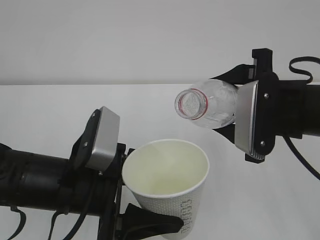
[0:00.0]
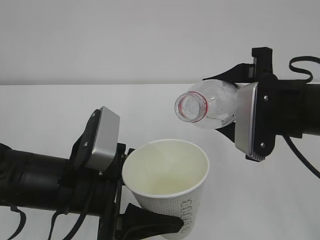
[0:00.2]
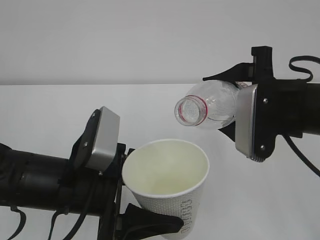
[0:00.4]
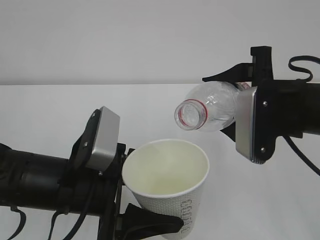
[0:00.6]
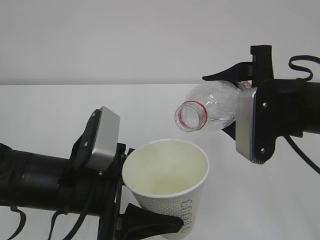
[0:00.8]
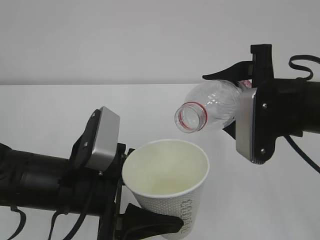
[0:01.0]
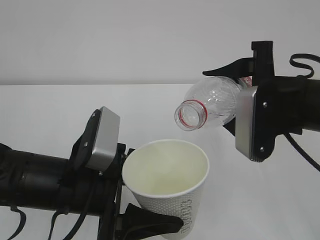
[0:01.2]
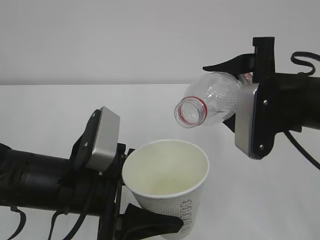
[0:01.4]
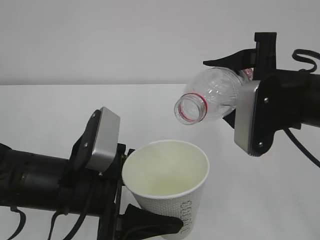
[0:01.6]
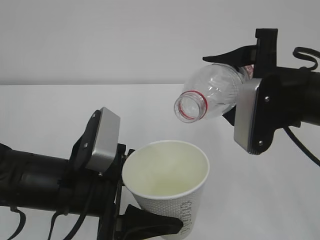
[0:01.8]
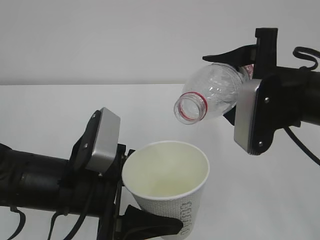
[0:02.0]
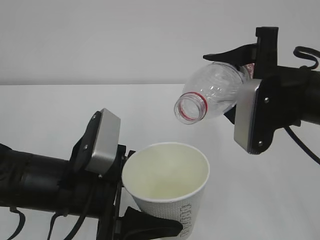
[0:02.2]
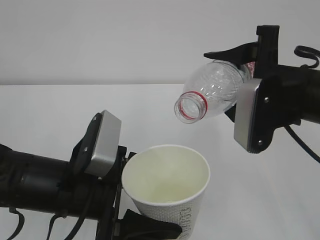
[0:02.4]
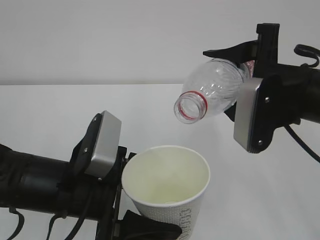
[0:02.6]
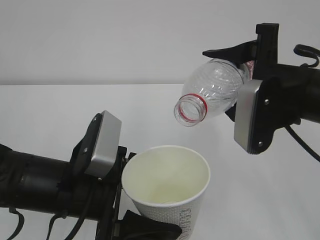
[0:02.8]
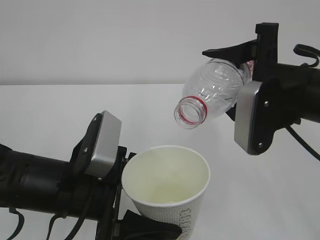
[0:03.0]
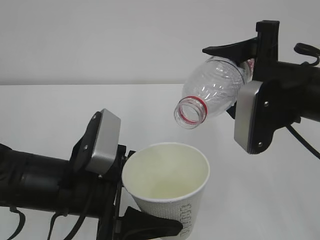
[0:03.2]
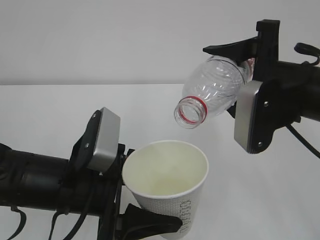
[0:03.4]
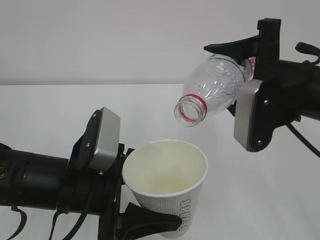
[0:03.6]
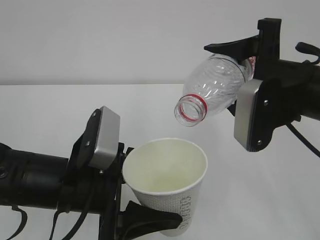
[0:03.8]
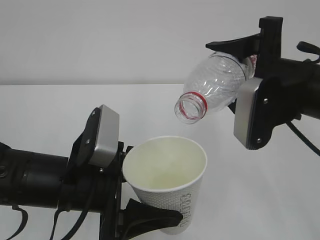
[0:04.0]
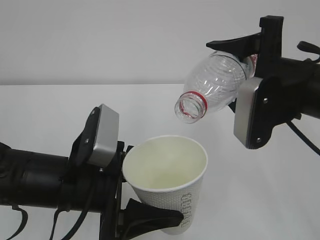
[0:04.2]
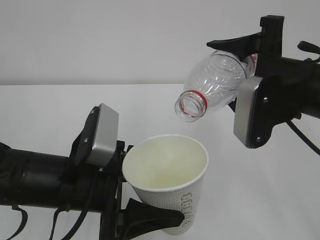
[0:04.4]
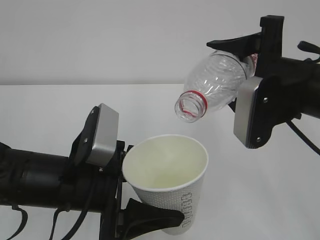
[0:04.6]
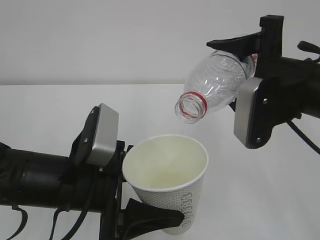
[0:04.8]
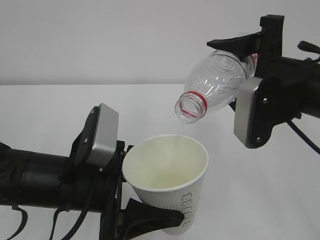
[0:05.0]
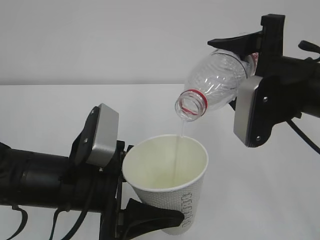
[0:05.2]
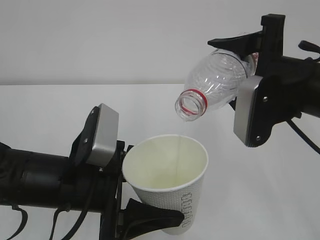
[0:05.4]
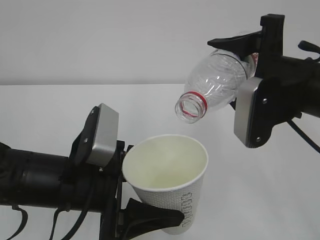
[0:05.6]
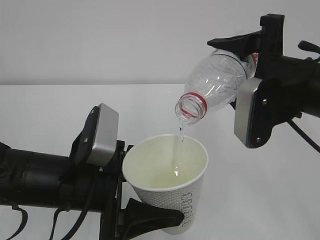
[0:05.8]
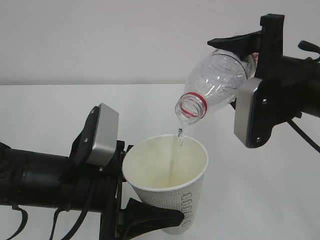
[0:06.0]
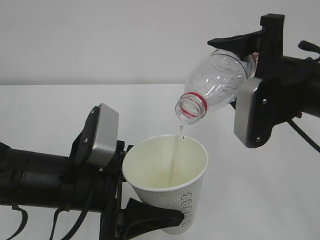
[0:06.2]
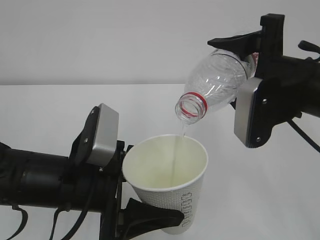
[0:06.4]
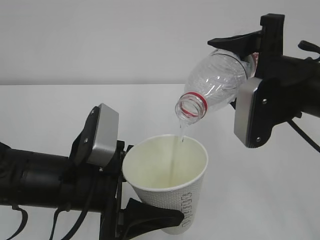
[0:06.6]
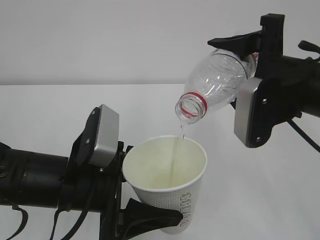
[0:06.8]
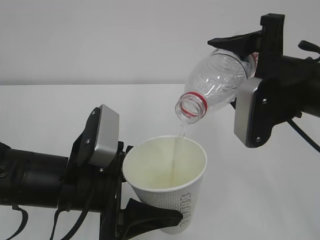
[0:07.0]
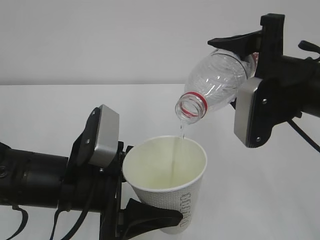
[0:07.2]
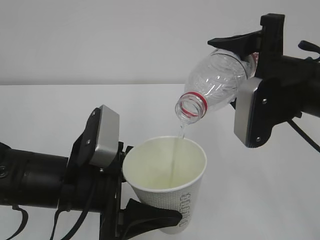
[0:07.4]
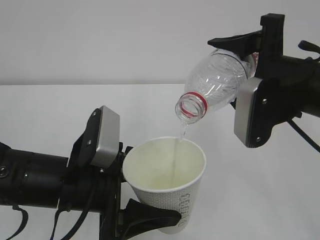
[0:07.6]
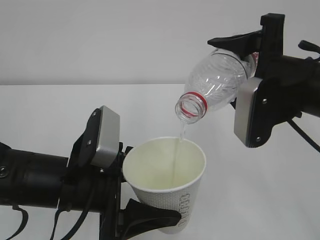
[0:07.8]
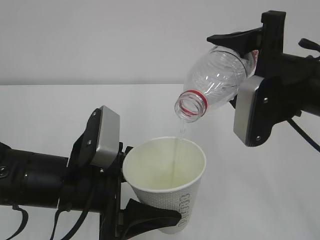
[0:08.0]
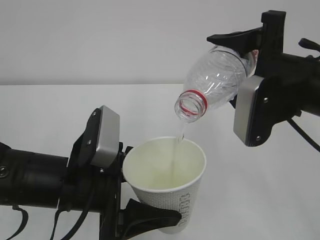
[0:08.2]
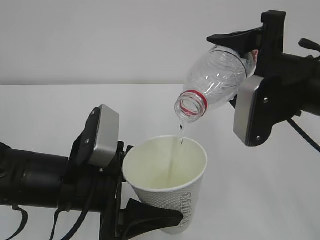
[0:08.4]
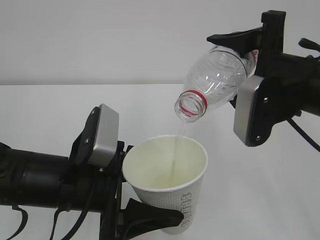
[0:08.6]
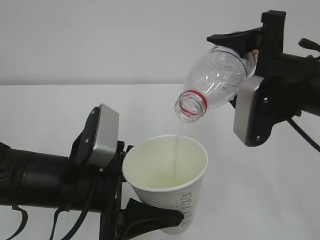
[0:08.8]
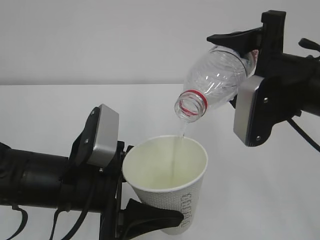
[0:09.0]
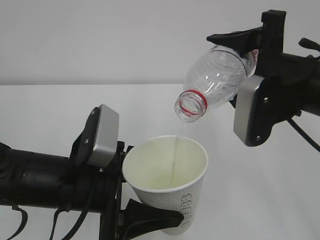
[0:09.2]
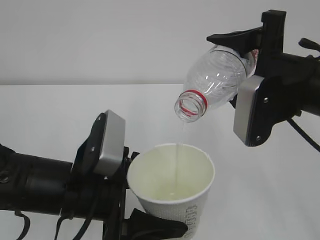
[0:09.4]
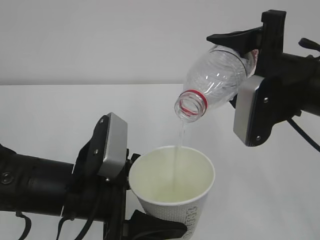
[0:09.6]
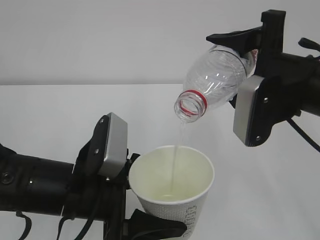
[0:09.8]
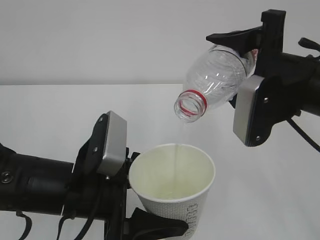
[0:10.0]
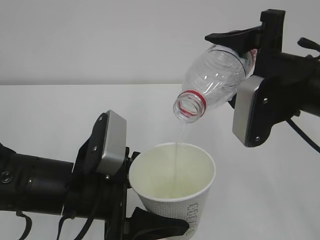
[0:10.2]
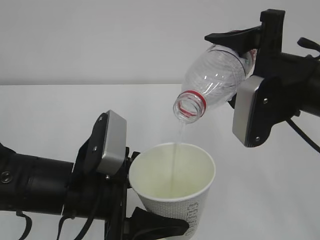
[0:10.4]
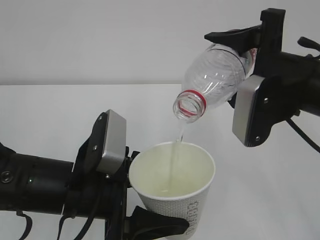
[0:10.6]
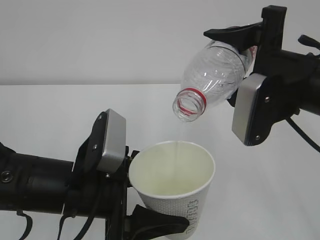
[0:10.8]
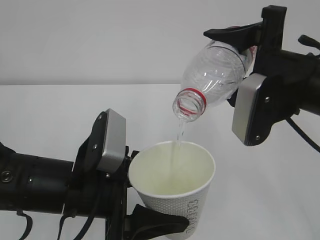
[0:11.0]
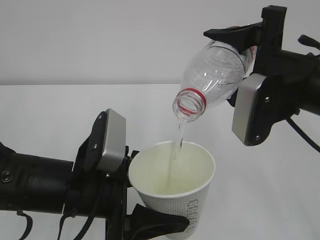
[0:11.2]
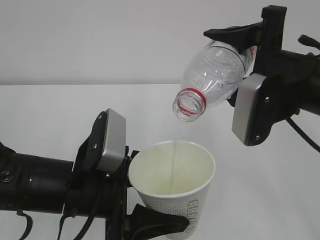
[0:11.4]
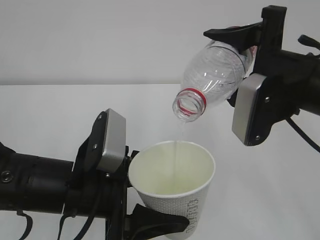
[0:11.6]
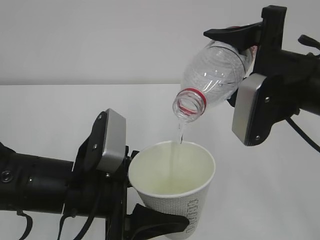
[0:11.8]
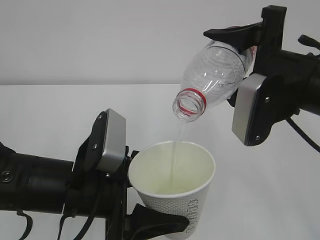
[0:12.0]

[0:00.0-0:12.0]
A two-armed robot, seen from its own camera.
0:00.0 to 0:01.6: The grippers make only small movements.
0:01.6 to 0:03.0: The grippers make only small movements.
0:03.0 to 0:04.4: Both grippers stay about where they are.
0:04.4 to 0:10.4: Both grippers stay about where they are.
0:10.4 to 0:12.0: Both grippers stay put.

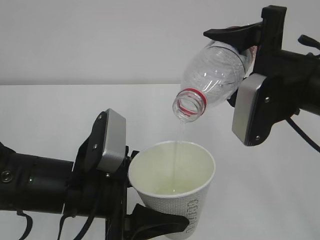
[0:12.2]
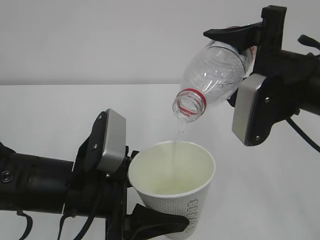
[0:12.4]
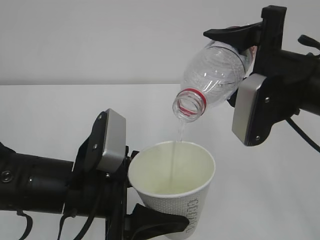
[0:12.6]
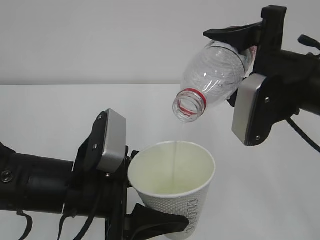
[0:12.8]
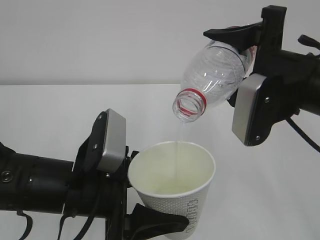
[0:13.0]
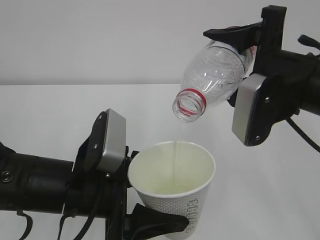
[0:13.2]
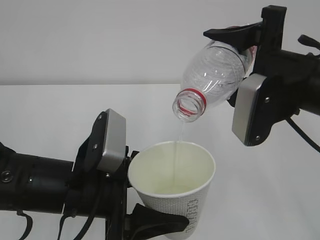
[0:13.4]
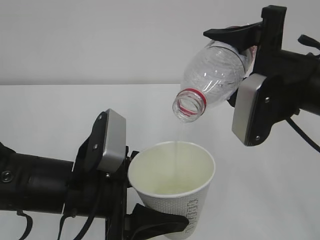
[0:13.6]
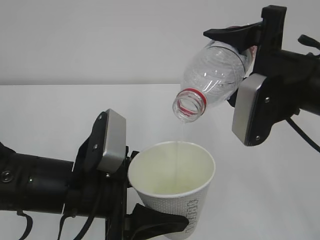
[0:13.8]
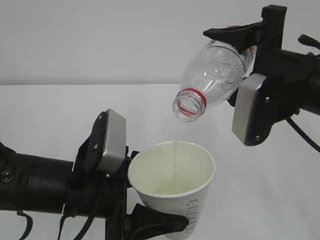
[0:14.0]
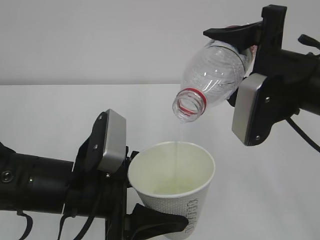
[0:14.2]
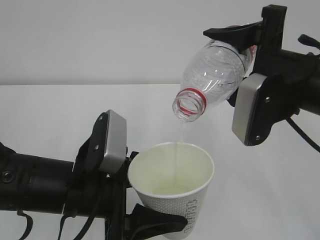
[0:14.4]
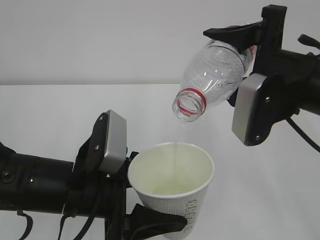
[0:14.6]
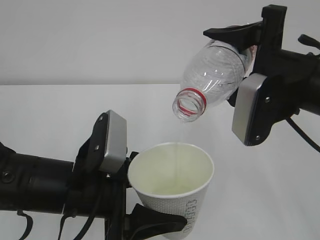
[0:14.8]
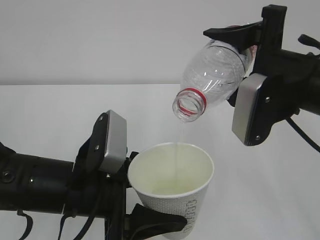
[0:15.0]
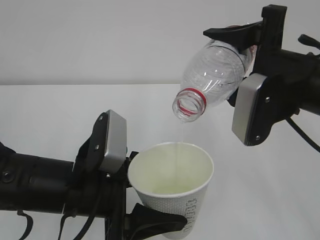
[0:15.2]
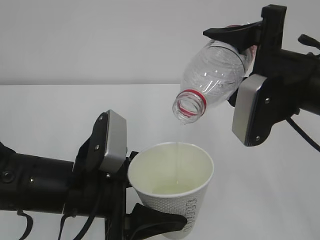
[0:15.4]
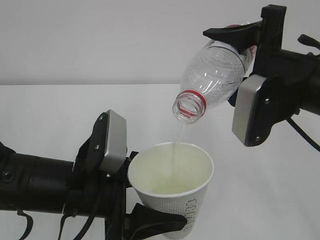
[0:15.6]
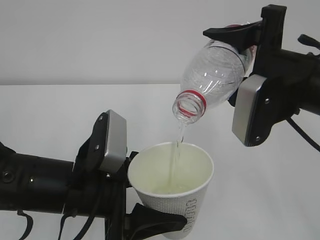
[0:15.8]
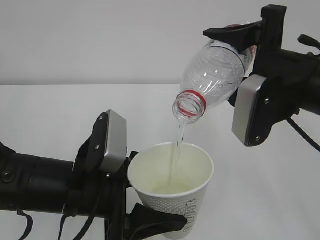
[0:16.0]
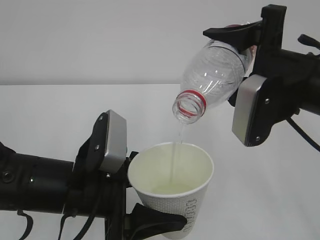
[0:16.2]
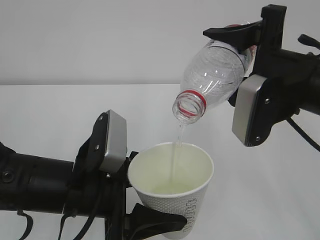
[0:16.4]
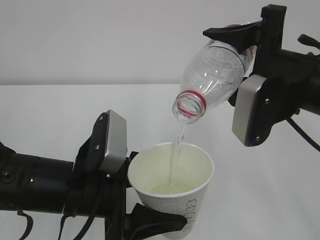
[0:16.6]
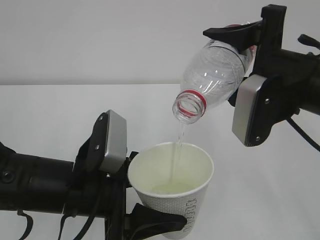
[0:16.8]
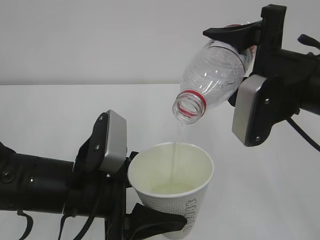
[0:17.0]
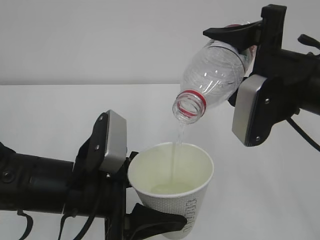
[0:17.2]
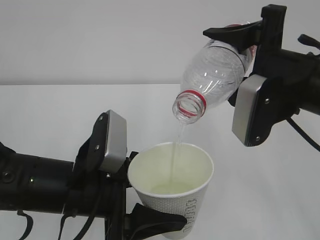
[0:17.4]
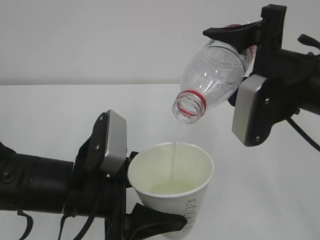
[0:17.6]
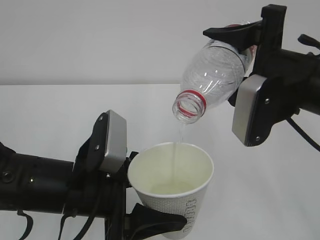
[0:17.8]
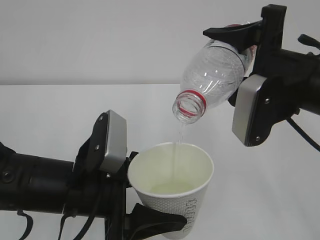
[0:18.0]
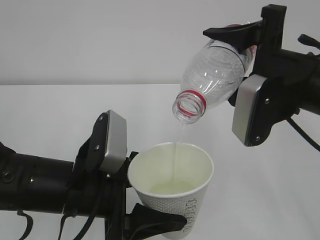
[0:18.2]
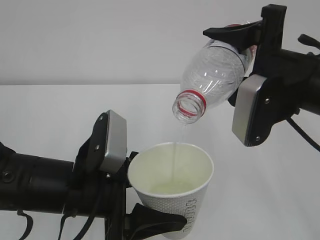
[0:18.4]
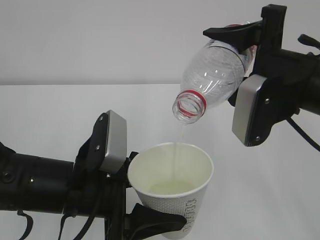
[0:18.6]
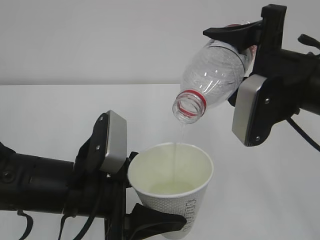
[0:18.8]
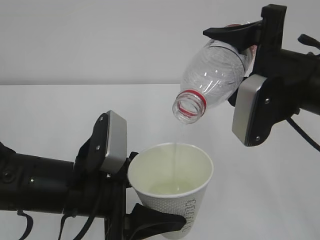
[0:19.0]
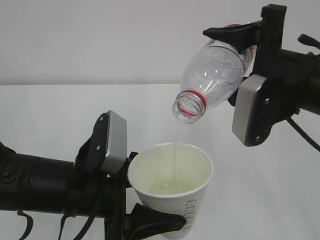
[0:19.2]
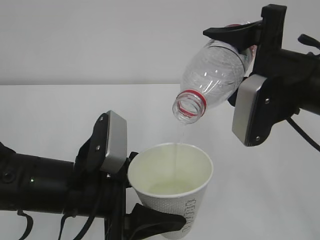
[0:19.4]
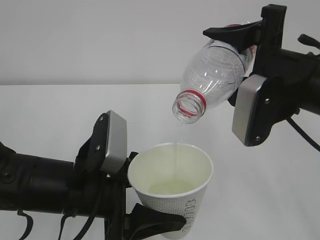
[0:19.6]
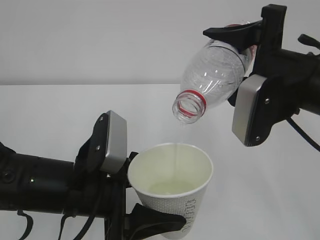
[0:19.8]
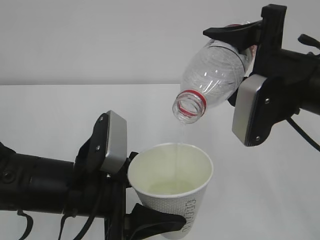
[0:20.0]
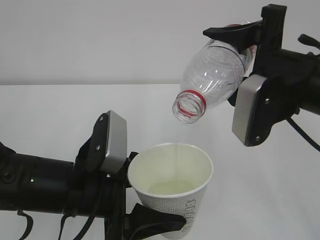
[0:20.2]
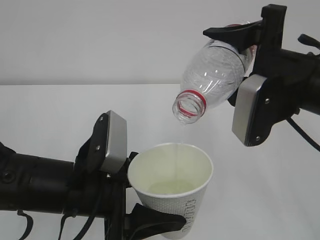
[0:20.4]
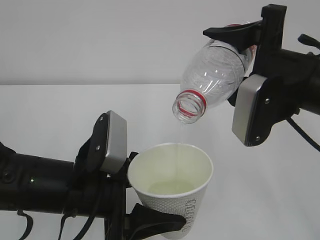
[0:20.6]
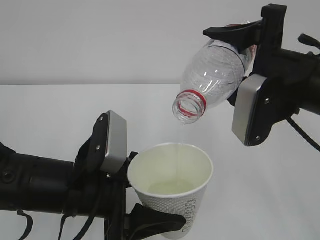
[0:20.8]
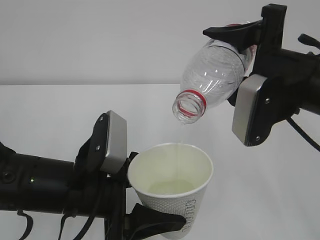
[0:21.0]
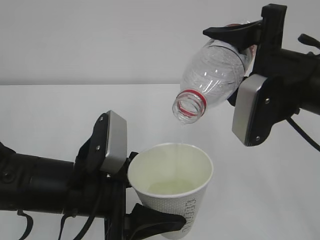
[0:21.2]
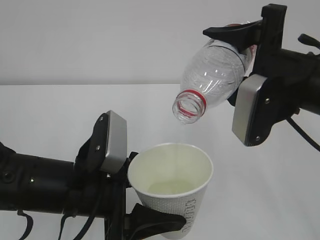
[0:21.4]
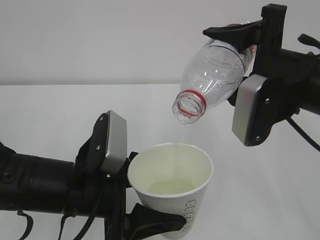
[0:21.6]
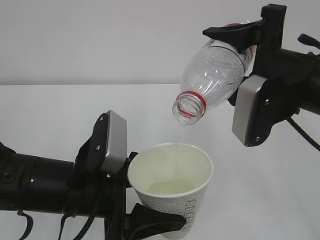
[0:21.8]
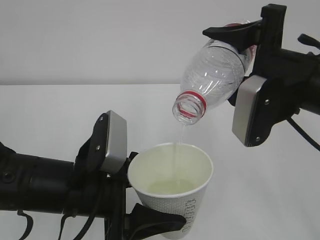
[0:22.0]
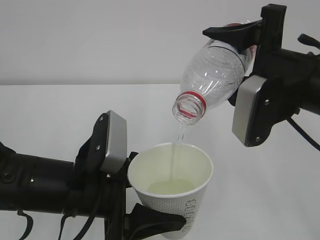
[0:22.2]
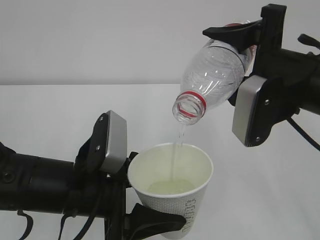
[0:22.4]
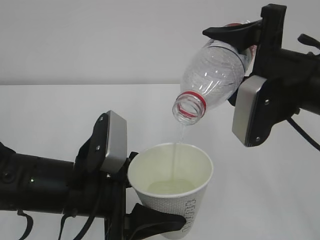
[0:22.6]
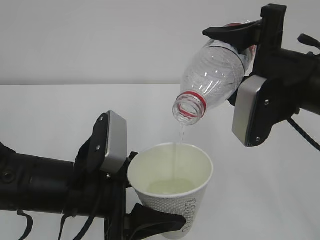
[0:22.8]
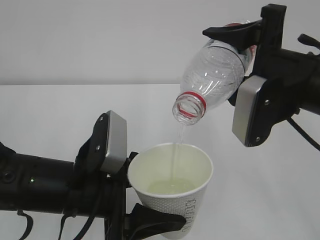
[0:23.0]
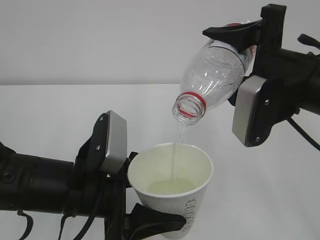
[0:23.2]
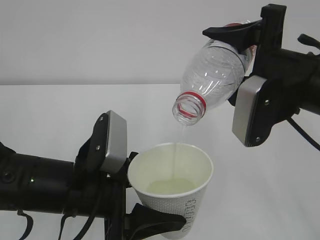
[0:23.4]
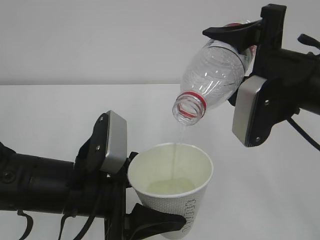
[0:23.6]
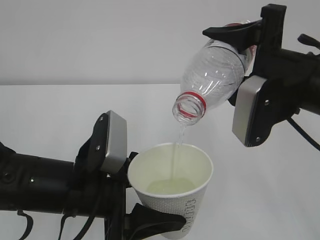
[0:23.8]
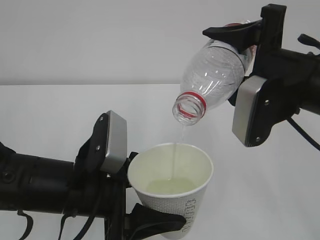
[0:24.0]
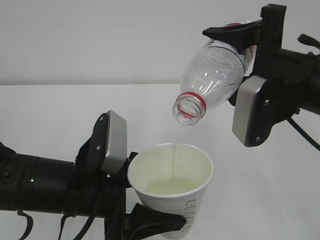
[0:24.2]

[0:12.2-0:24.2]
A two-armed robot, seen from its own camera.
0:12.2 to 0:24.2: The two grippers keep their place.
